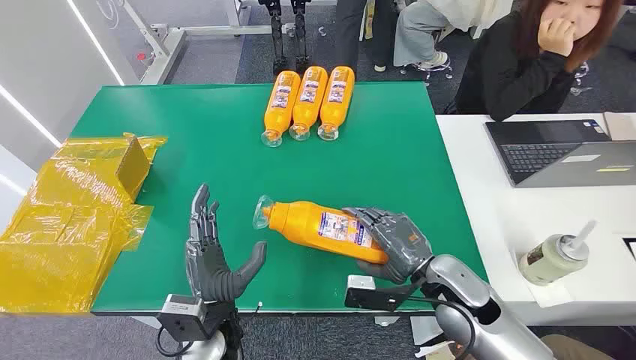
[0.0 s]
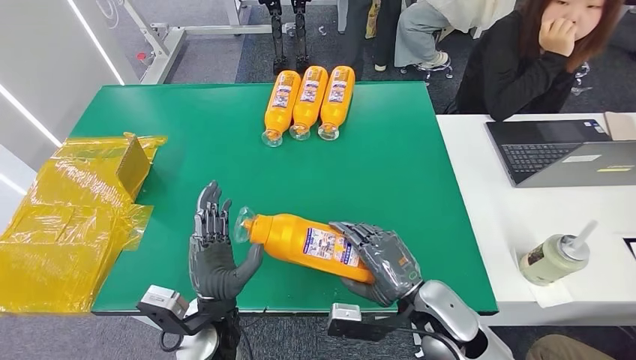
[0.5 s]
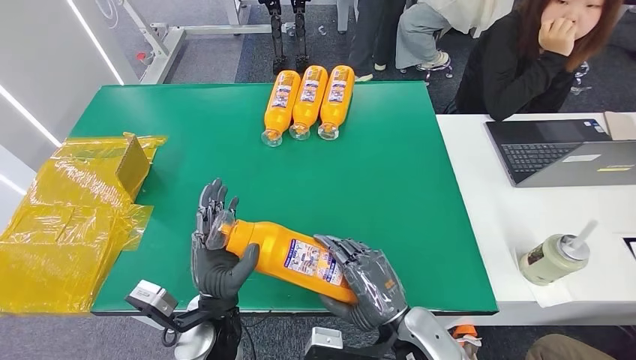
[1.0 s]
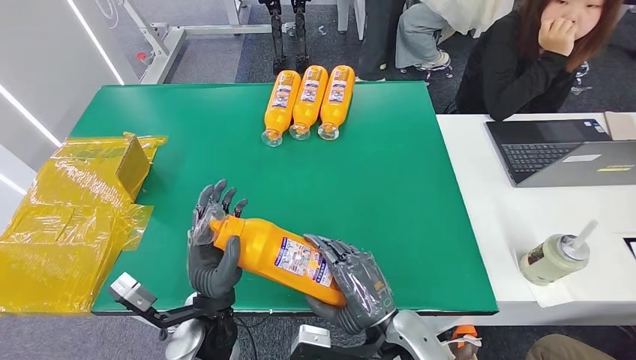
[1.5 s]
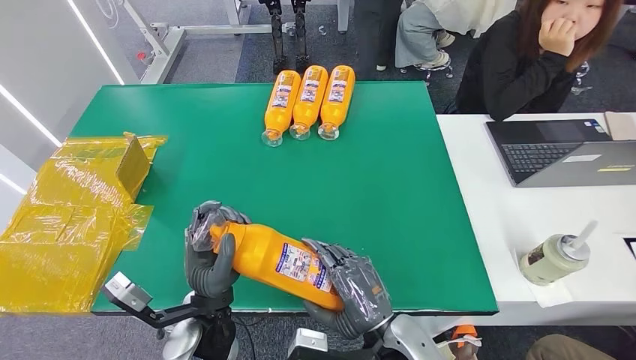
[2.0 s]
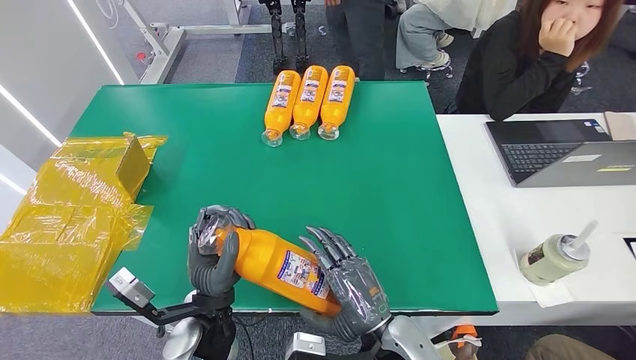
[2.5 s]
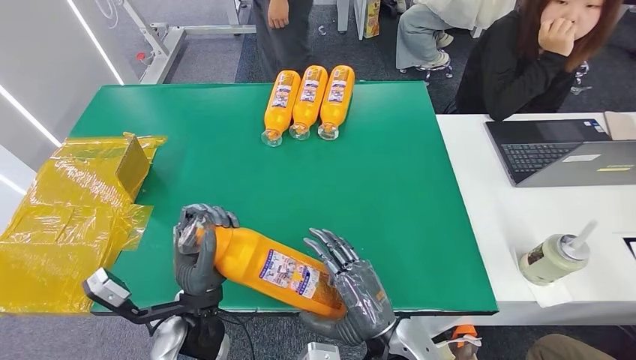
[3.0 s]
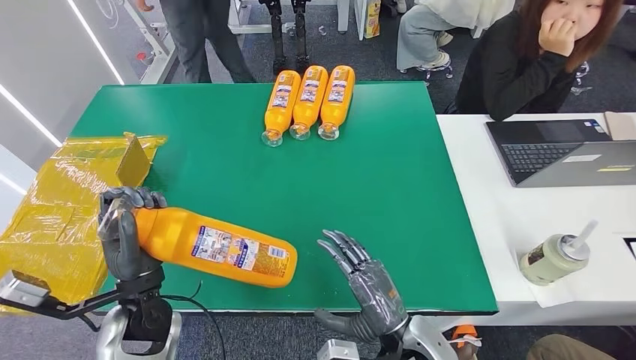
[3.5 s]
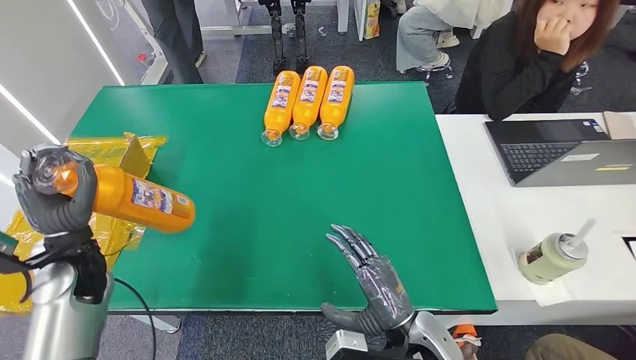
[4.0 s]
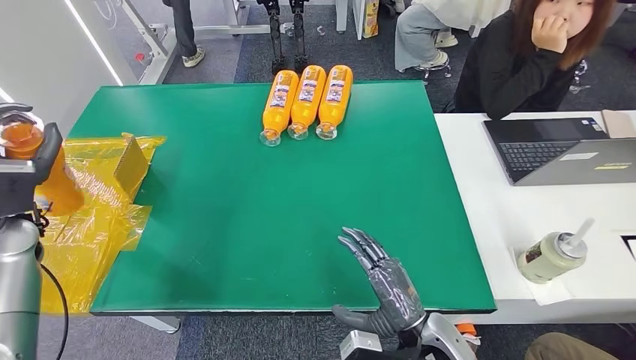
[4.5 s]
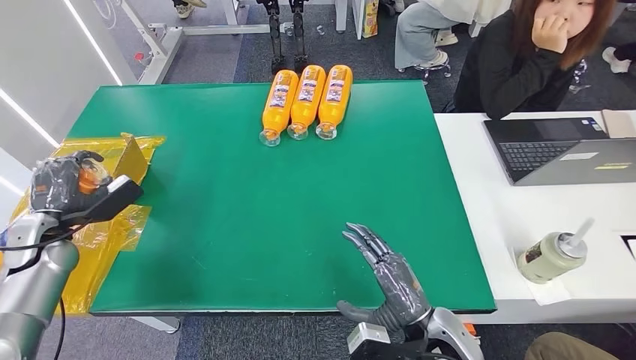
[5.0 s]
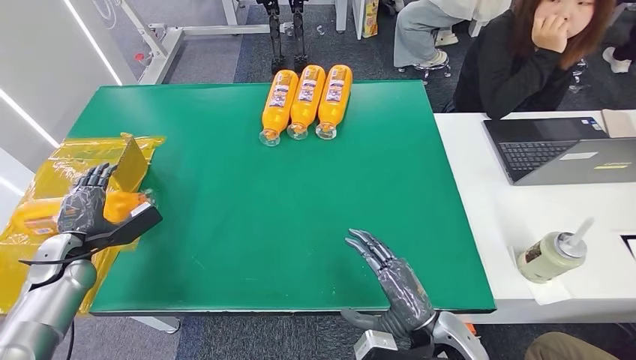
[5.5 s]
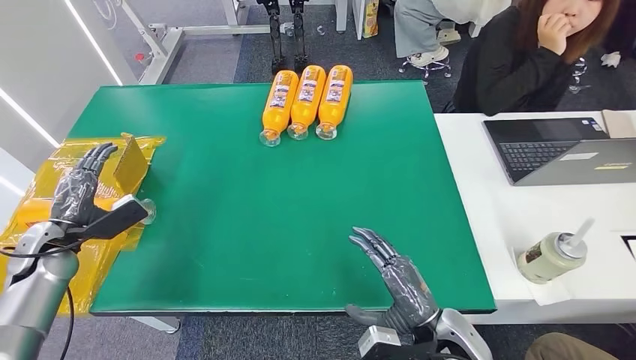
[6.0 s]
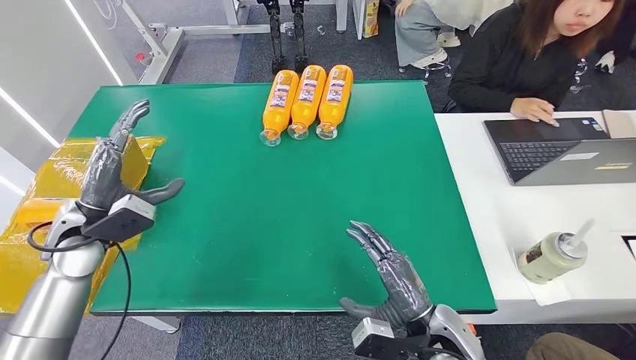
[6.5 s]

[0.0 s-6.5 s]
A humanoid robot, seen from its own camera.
Step, 0.0 to 1.0 s: Pick up the bottle from the table.
Step, 2.0 to 6.5 s: Turn the bottle to the front side.
4.5 to 6.5 s: The left hand goes some 10 cm to the right.
